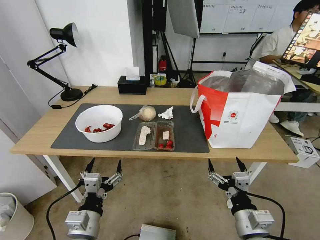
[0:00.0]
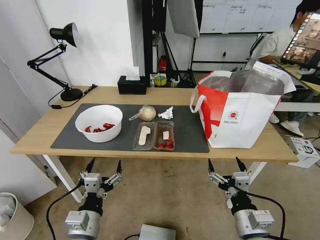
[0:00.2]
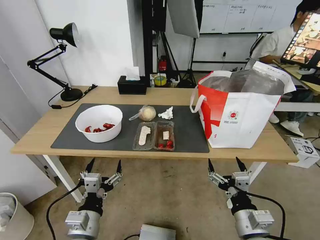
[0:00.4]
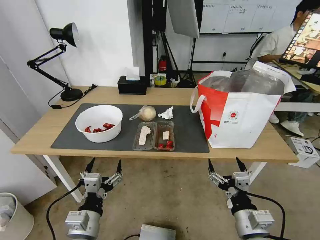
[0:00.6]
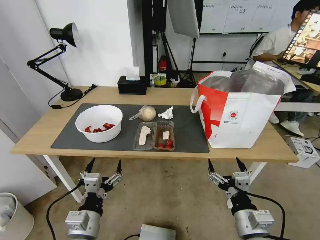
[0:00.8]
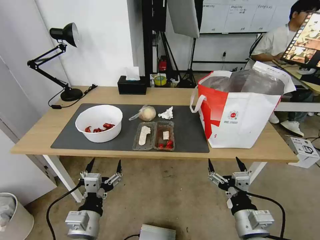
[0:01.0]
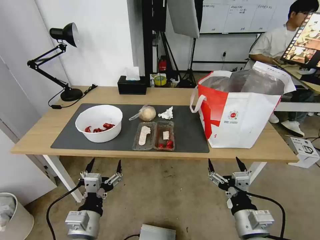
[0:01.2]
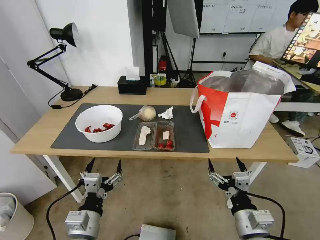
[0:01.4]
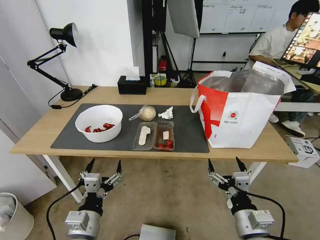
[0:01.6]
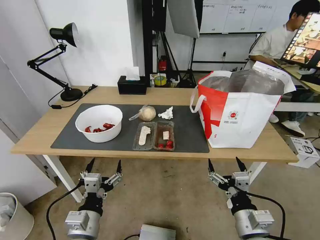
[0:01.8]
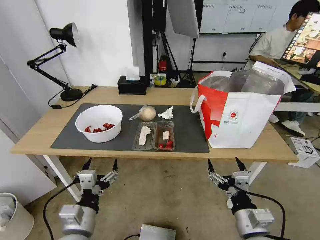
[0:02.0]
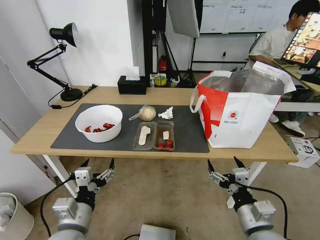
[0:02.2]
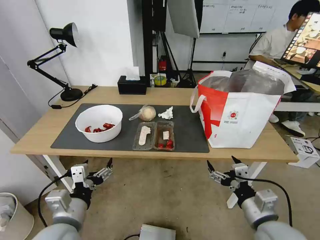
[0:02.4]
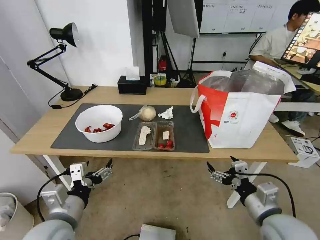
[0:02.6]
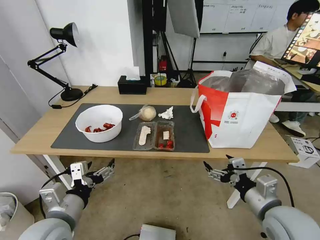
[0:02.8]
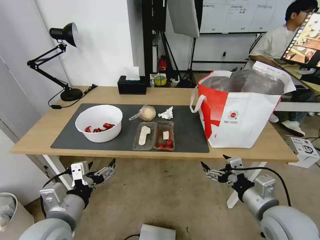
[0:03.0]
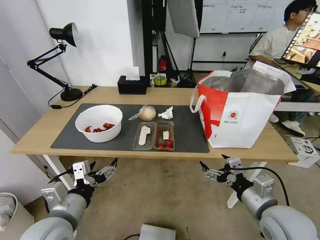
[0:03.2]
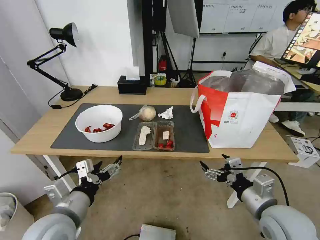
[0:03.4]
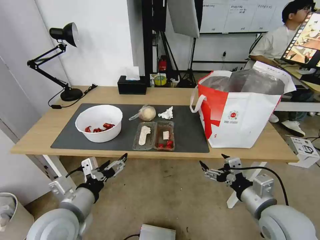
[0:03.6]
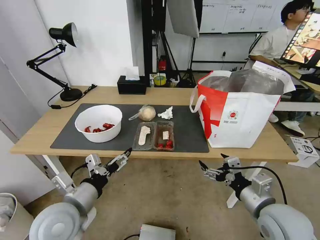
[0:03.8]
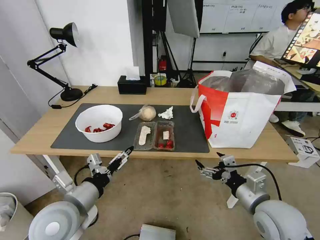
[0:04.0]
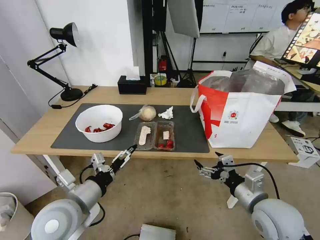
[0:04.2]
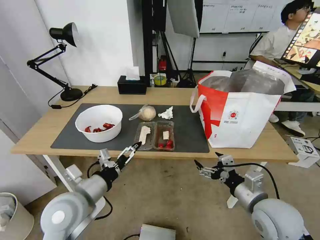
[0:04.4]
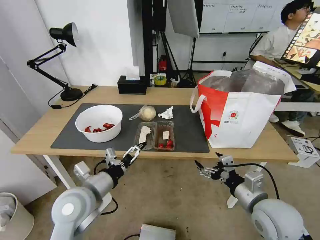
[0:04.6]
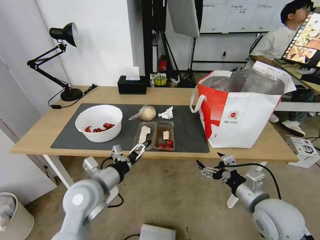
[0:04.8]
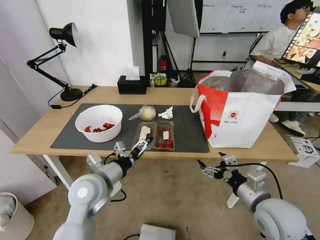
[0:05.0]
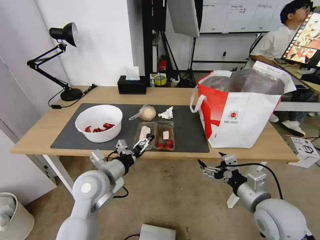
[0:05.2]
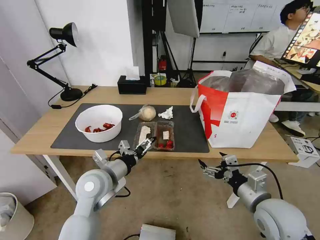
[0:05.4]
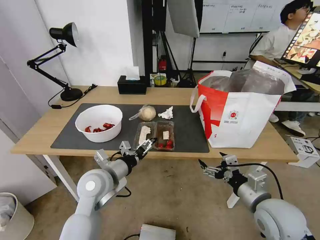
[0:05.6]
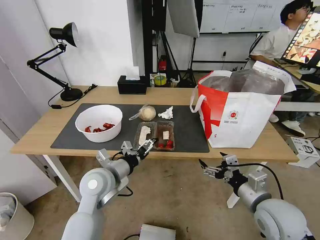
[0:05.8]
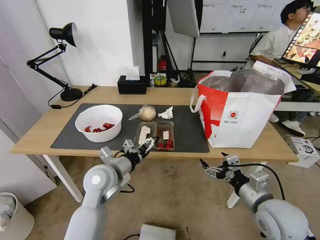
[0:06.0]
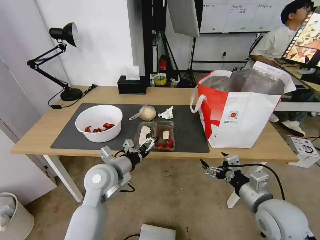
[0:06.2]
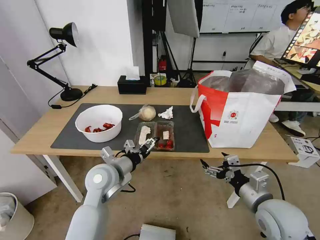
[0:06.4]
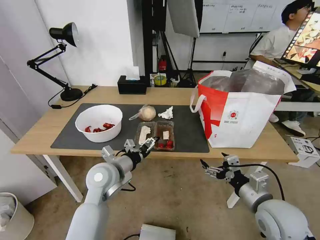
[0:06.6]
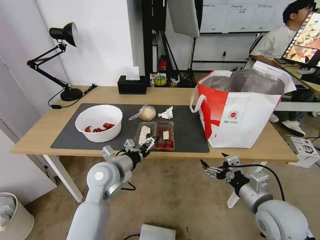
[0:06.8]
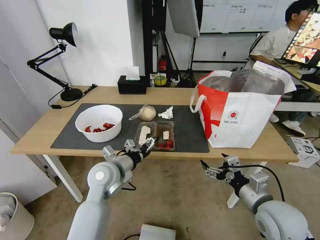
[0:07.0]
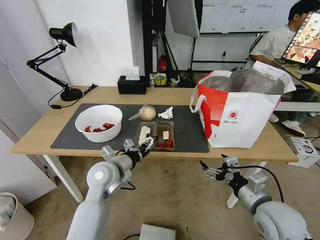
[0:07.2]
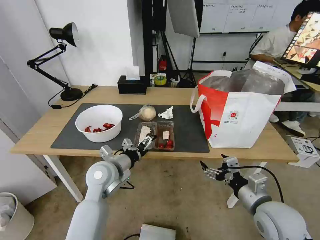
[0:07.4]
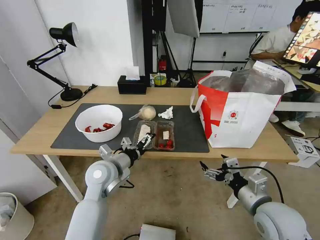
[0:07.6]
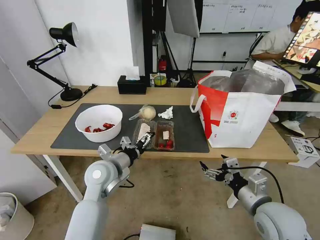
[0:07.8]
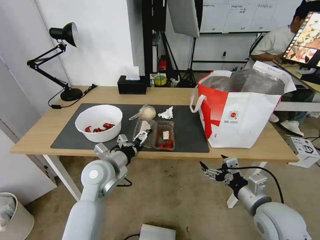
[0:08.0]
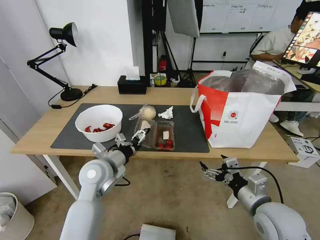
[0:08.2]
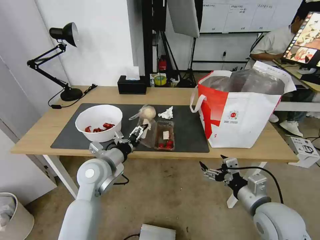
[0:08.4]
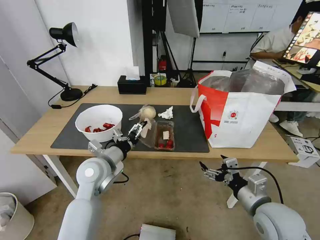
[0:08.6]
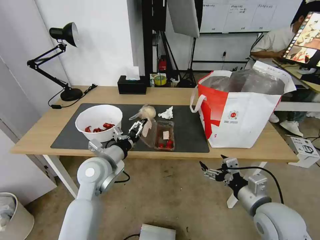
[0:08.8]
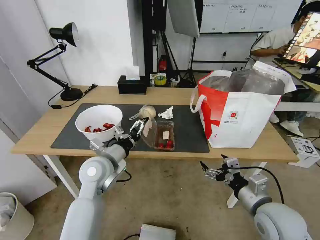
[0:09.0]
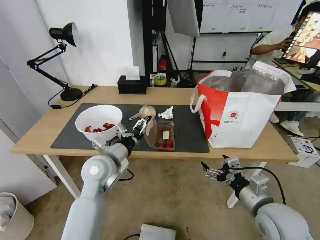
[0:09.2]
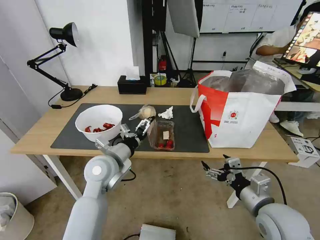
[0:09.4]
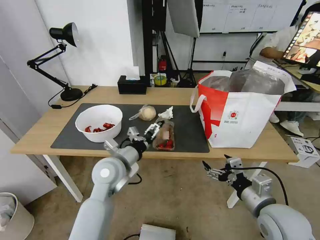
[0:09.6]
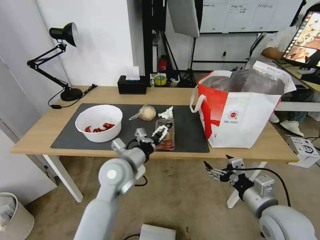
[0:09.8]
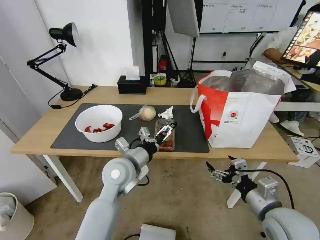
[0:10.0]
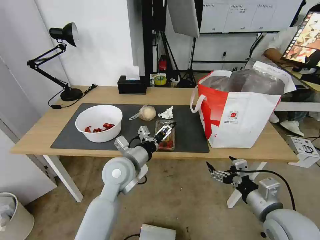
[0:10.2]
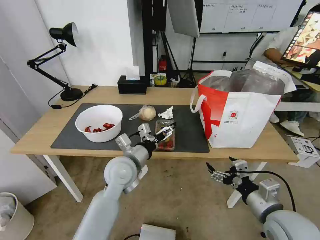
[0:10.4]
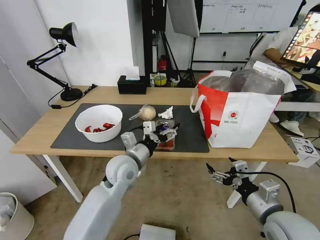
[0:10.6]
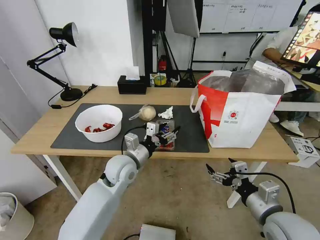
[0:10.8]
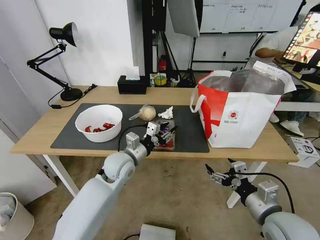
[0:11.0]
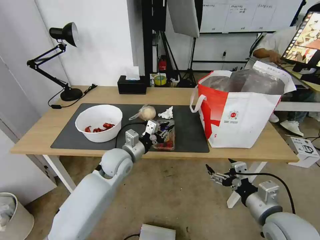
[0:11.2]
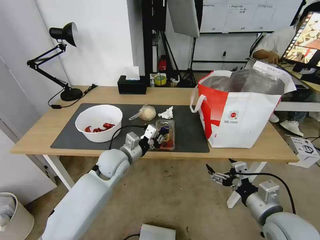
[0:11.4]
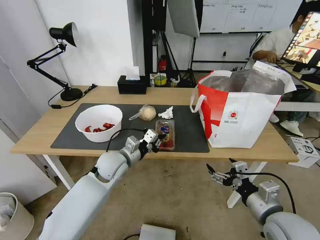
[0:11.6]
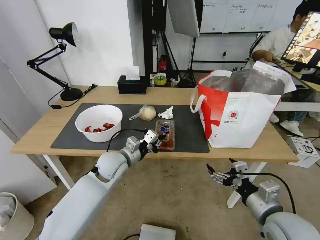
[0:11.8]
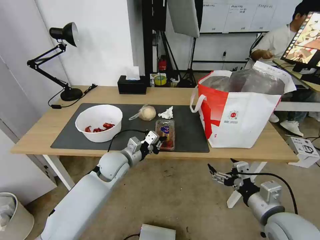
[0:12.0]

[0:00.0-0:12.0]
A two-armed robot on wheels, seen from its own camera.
Task of the whole recording: Pick up the trash from the table and place it into the takeout bag.
0:01.6 to 0:03.0: The left gripper heads upward, covering roughly 10 cm; the right gripper travels upward, forward and to the right by about 10 cm.
0:03.0 to 0:04.4: The left gripper shifts some 5 cm forward.
0:04.4 to 0:06.0: The left gripper goes roughly 10 cm forward.
0:06.0 to 0:09.0: The grippers move only a little.
0:09.0 to 0:10.4: The left gripper heads to the right, covering roughly 5 cm.
0:10.4 to 0:12.0: The left gripper travels forward by some 5 cm, and closes its fingers.

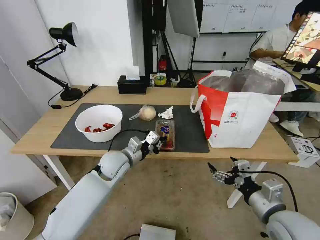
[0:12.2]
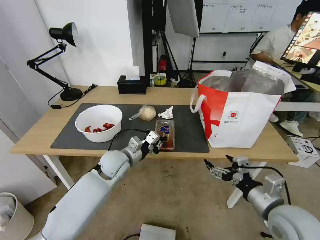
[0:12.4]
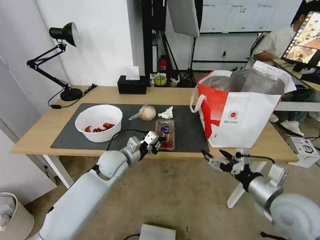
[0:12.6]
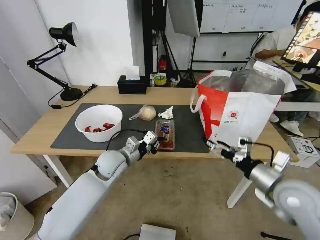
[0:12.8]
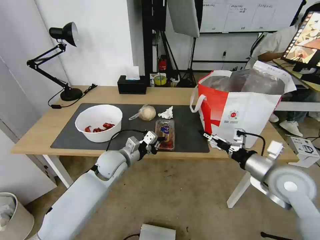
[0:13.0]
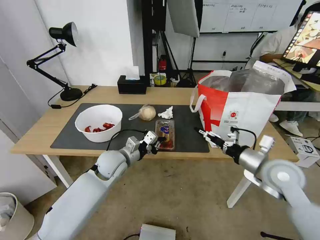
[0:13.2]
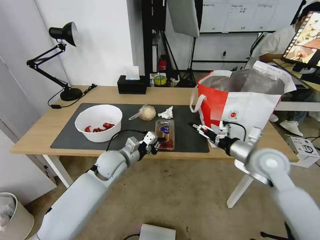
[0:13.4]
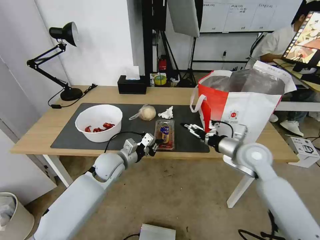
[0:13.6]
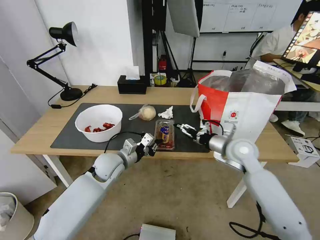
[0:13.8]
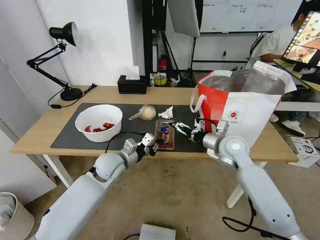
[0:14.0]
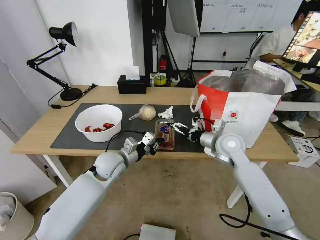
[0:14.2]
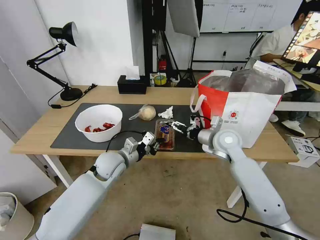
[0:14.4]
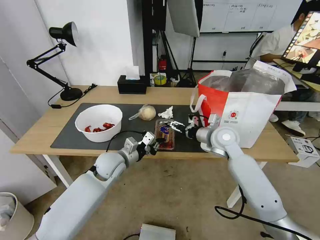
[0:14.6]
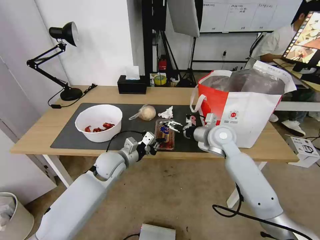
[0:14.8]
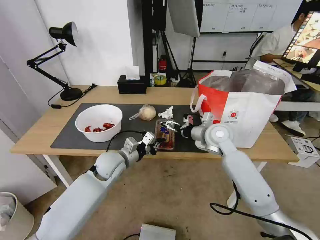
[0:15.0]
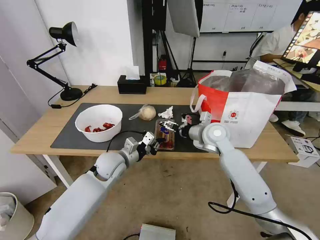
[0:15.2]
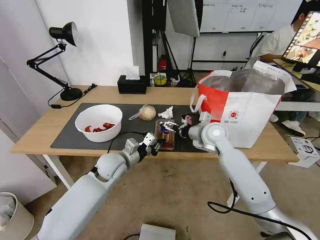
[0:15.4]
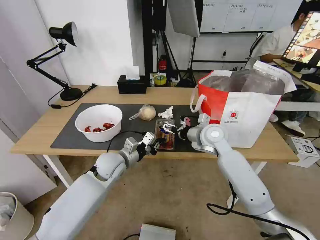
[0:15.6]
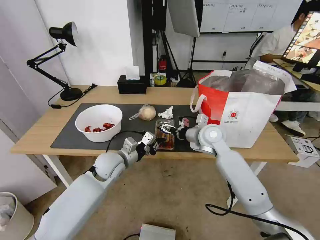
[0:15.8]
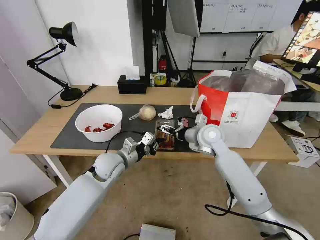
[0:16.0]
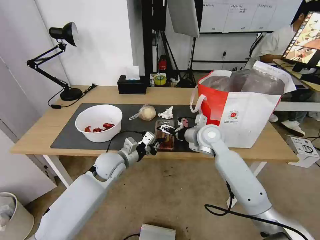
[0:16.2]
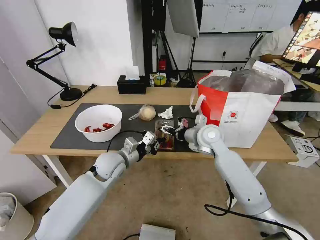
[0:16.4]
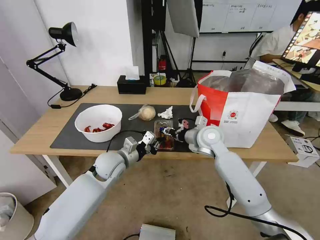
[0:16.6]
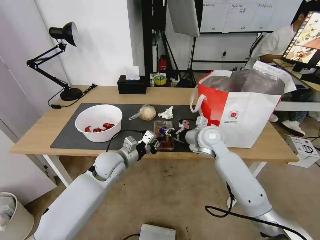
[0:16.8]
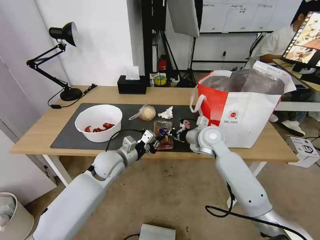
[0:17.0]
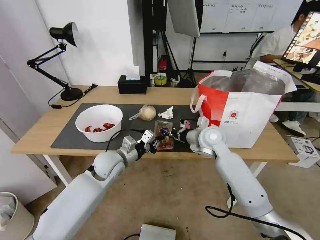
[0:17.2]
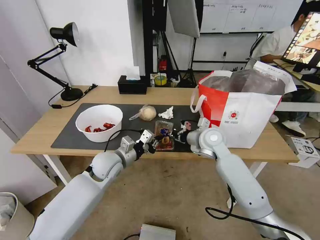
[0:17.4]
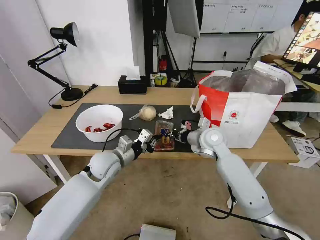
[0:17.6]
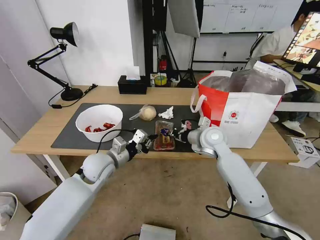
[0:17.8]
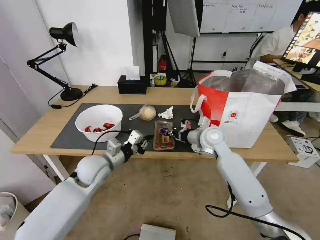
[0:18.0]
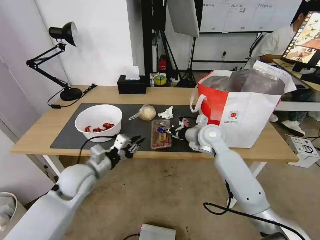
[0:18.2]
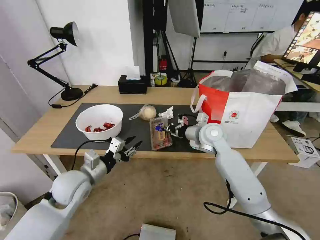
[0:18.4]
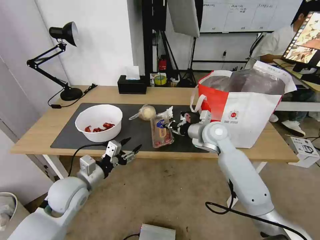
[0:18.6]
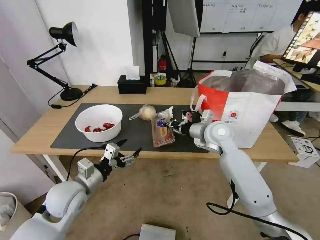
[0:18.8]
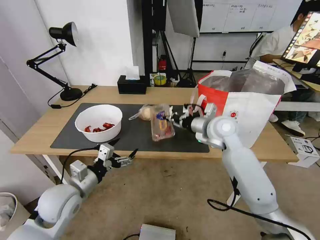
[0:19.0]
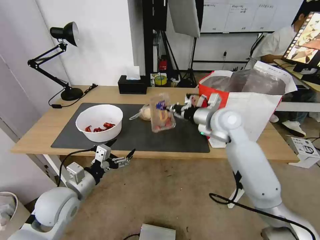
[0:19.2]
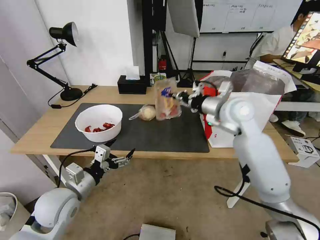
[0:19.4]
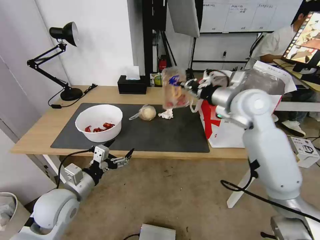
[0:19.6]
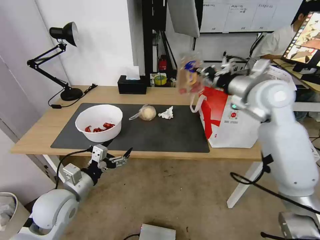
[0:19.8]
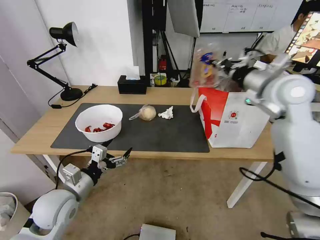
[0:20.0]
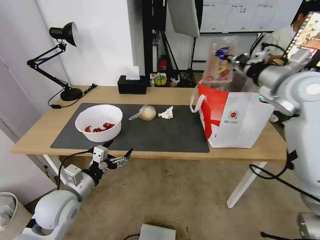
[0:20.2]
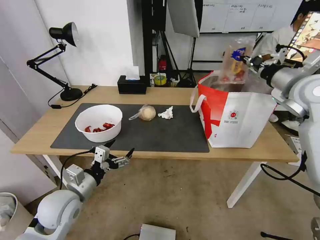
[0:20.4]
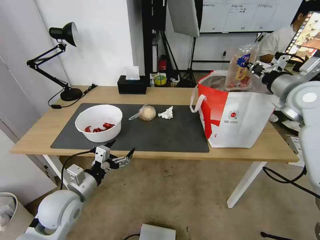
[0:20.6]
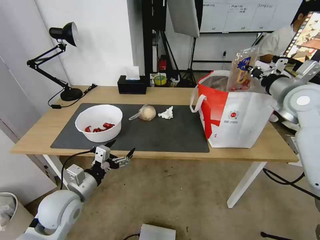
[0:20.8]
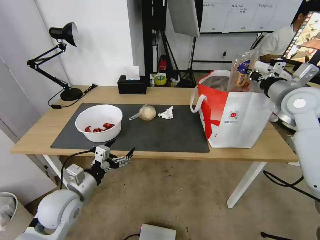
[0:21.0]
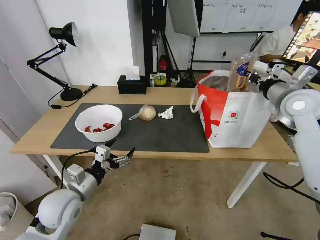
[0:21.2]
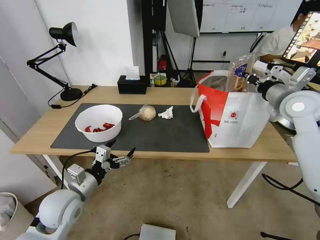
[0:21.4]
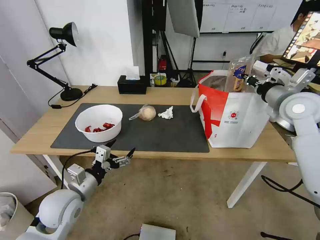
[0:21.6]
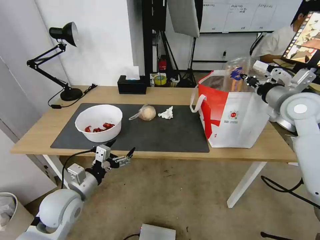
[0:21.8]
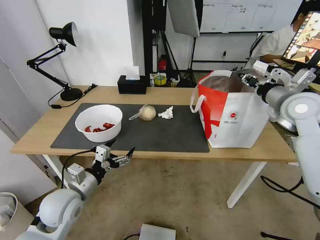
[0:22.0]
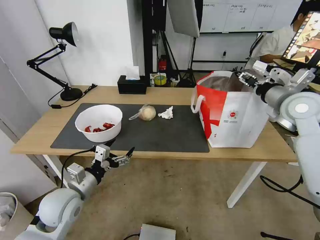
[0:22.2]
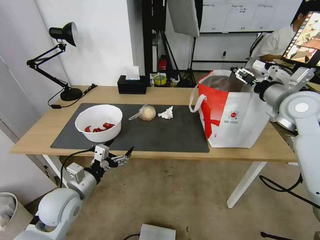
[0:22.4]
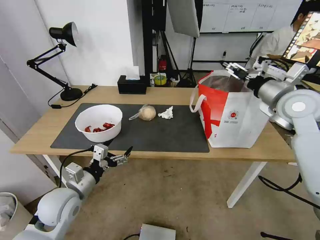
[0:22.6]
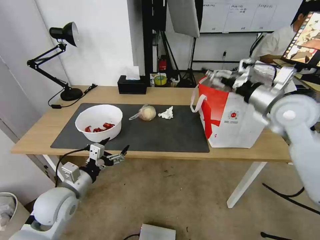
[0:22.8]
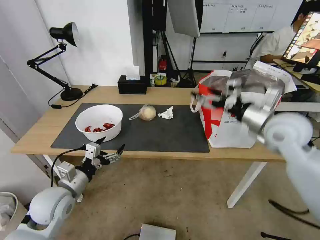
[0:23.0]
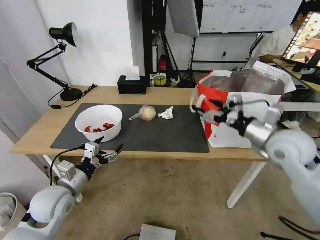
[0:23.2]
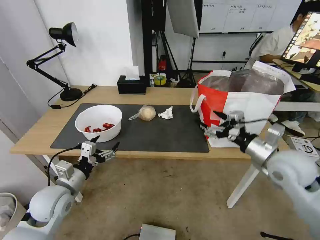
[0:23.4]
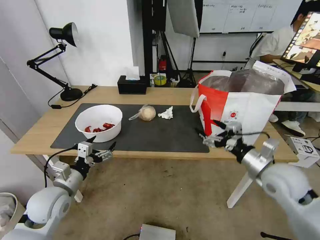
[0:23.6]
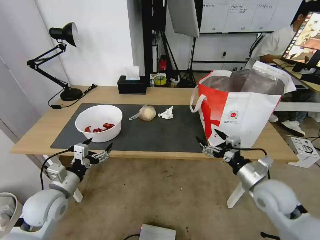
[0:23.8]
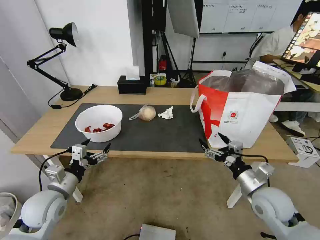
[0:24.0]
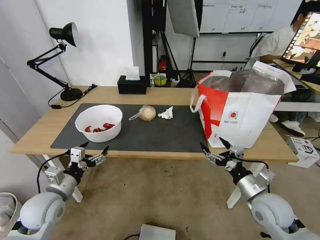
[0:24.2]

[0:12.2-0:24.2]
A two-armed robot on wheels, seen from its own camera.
Task of the whole recording: Pick up the trash from the table and place it into the takeout bag.
0:12.2 to 0:13.8: The right gripper goes about 20 cm forward.
0:13.8 to 0:15.2: The right gripper goes about 10 cm to the left and forward.
0:15.2 to 0:16.6: The right gripper closes up.
0:16.6 to 0:18.2: The right gripper closes up. The left gripper heads to the left and backward, covering about 10 cm.
0:18.2 to 0:19.8: The right gripper moves upward and to the right, some 20 cm. The left gripper travels backward by roughly 10 cm, and opens.
0:19.8 to 0:21.2: The right gripper moves to the right, approximately 10 cm.
0:21.2 to 0:22.6: The right gripper opens its fingers.
0:22.6 to 0:24.2: The left gripper shifts roughly 5 cm to the left, while the right gripper goes about 30 cm downward and backward.
